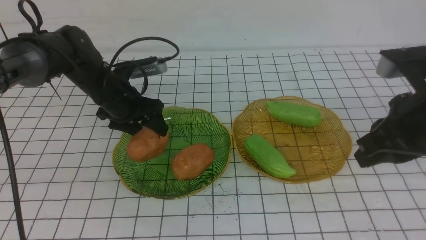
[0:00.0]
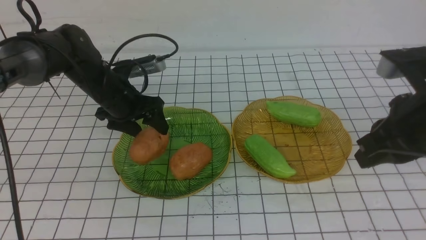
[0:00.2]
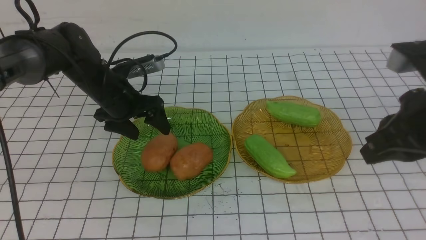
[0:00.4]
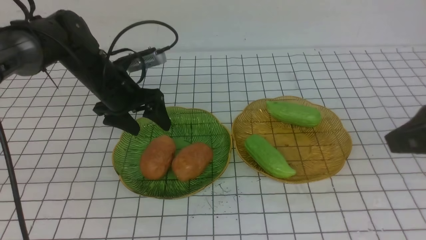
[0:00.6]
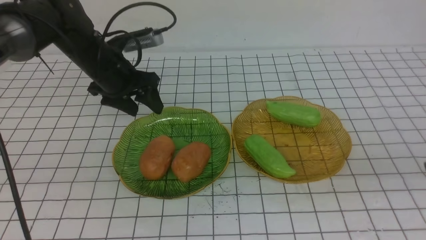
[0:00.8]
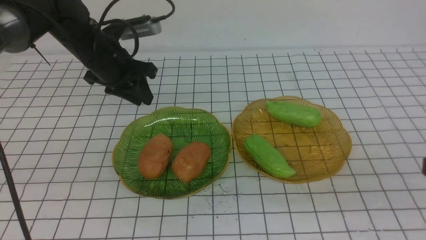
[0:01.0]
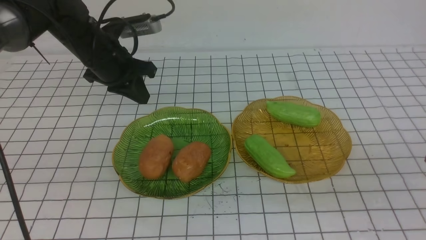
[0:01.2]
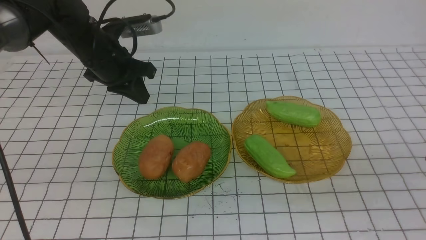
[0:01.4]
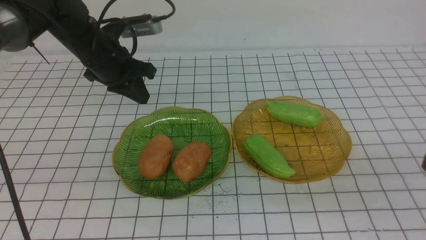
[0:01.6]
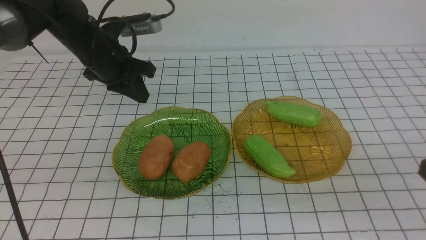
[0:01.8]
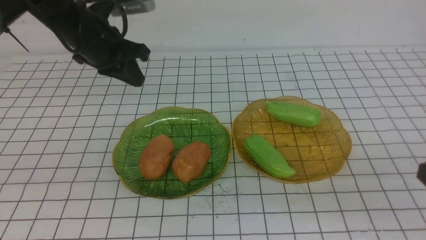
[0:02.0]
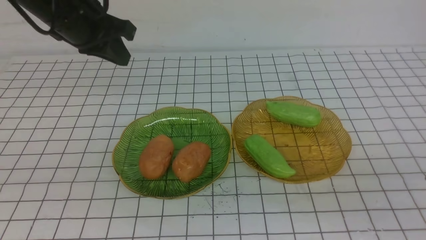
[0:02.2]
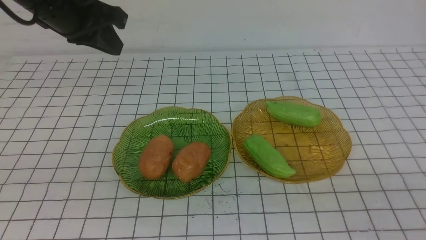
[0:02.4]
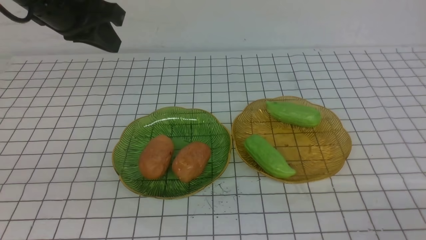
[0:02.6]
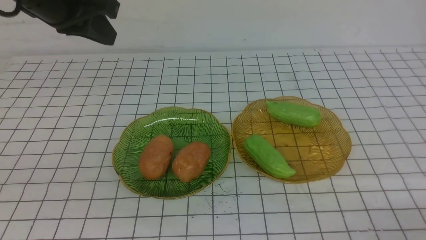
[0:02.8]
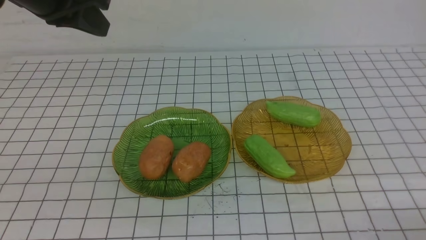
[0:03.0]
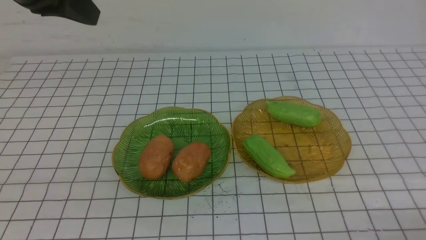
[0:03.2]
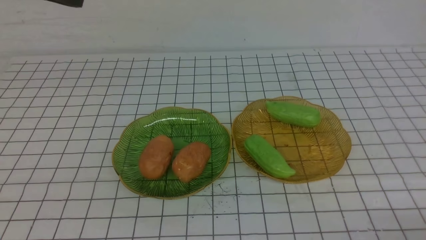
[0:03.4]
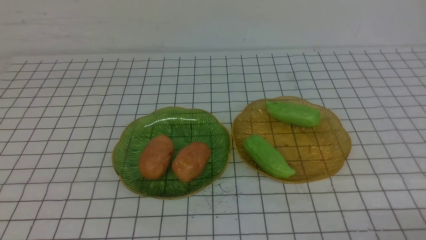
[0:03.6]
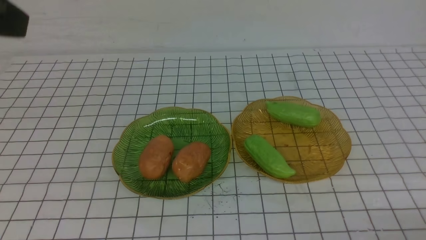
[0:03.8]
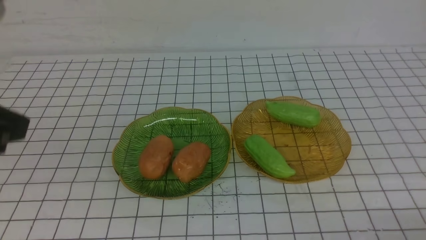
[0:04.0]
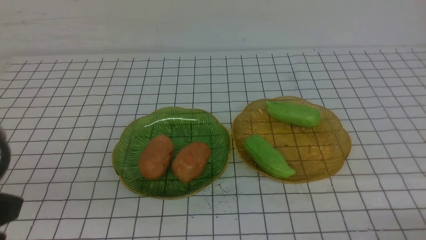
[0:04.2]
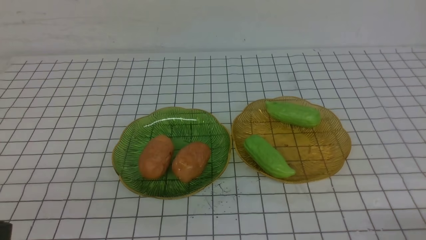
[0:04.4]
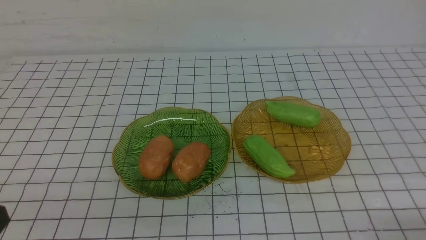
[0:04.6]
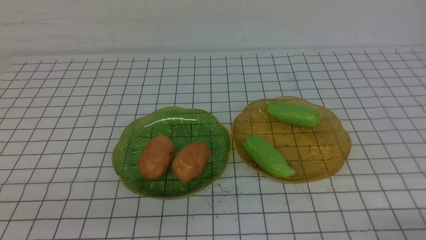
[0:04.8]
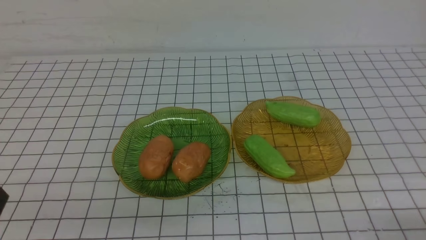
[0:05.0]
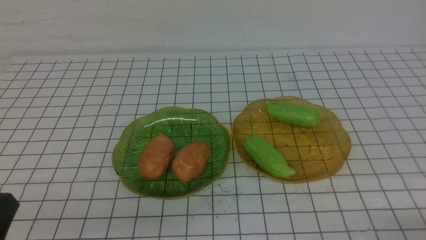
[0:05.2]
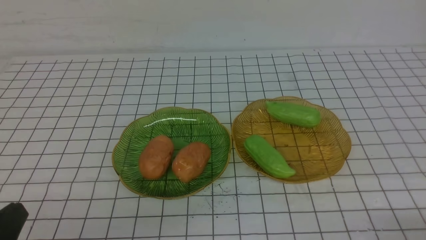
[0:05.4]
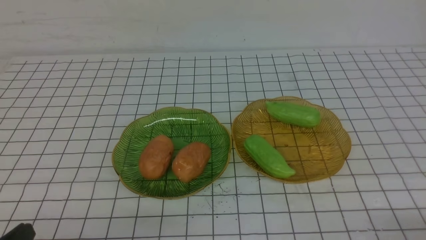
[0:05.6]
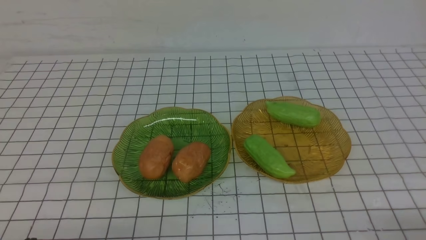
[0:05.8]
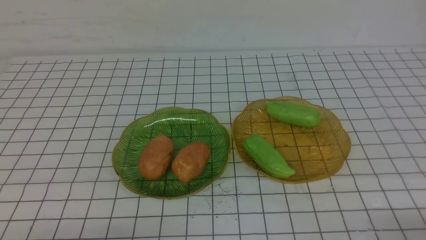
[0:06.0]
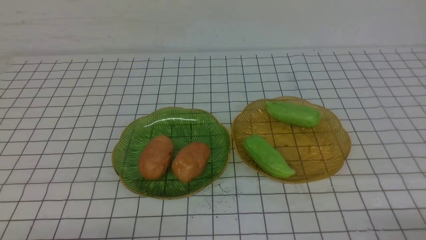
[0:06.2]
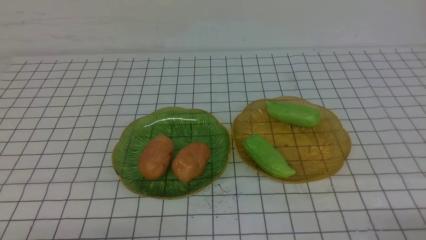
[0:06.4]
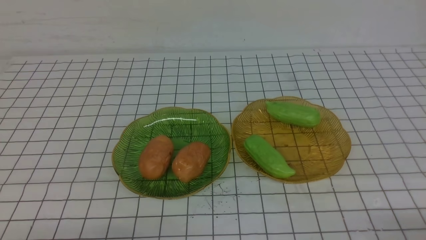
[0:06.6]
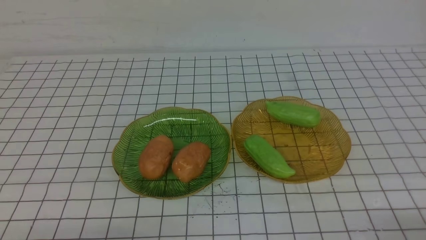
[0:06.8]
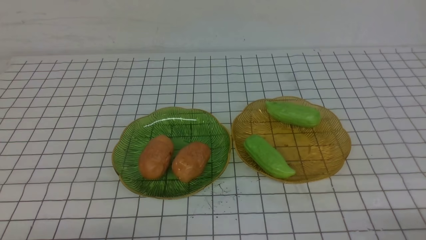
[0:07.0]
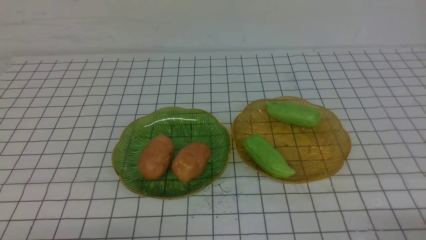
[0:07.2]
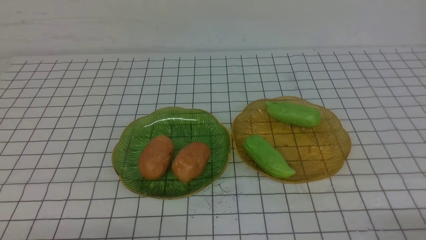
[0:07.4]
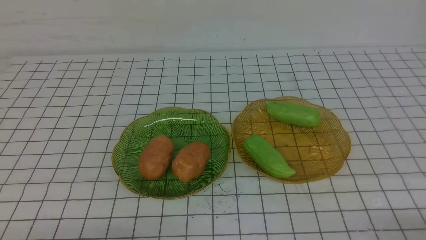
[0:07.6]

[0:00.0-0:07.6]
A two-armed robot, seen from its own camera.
0:00.0 to 0:01.6: The left gripper shifts approximately 5 cm upward, and closes up. Meanwhile the right gripper heads backward, covering about 15 cm.
0:01.6 to 0:03.0: The right gripper goes roughly 10 cm downward. The left gripper shifts approximately 20 cm upward and backward.
0:03.0 to 0:04.6: The left gripper is displaced backward and downward by roughly 30 cm.
0:06.0 to 0:07.6: Both grippers stay about where they are.
